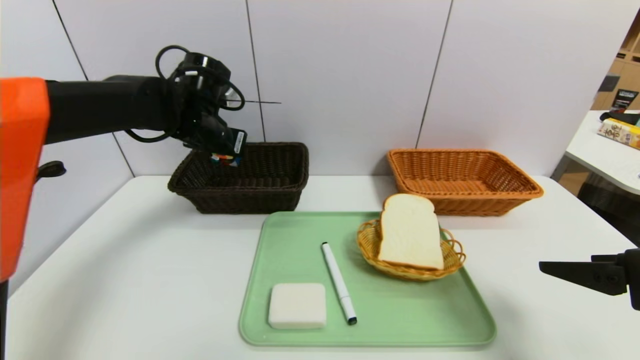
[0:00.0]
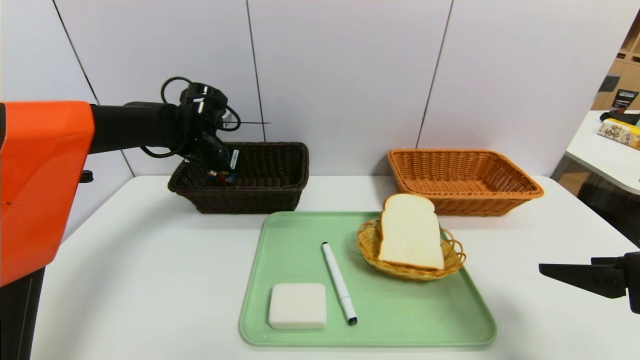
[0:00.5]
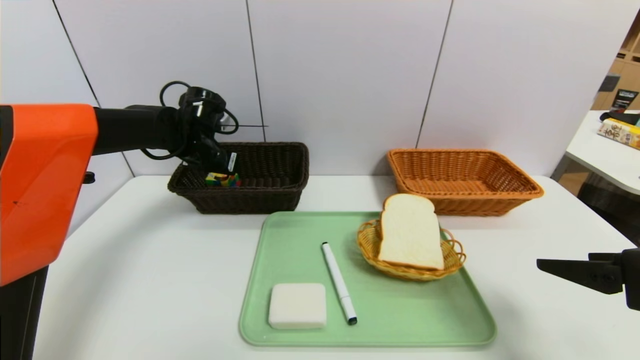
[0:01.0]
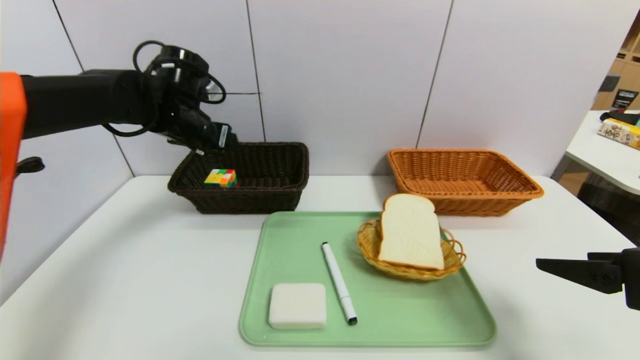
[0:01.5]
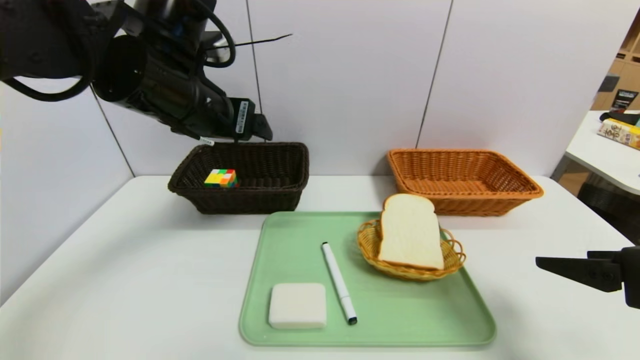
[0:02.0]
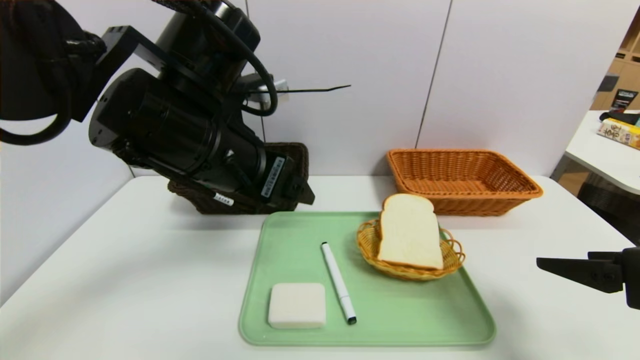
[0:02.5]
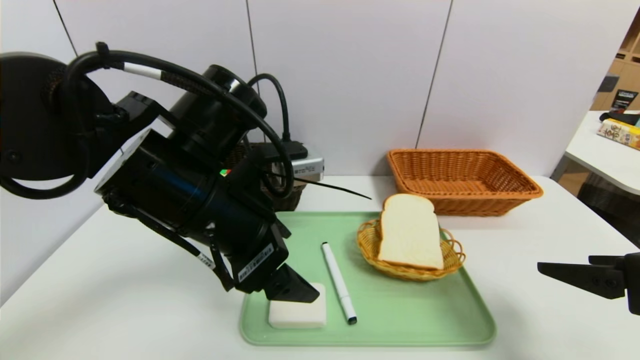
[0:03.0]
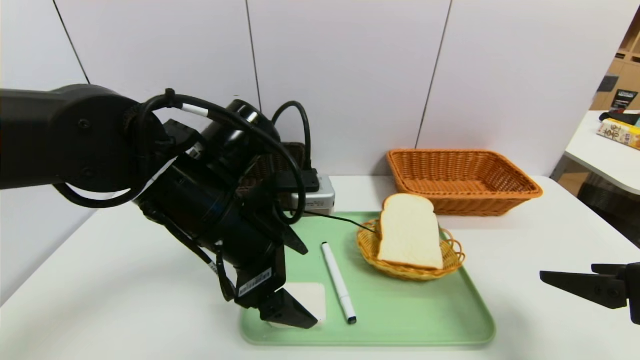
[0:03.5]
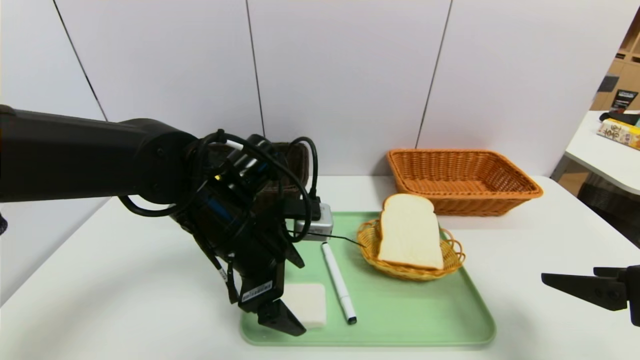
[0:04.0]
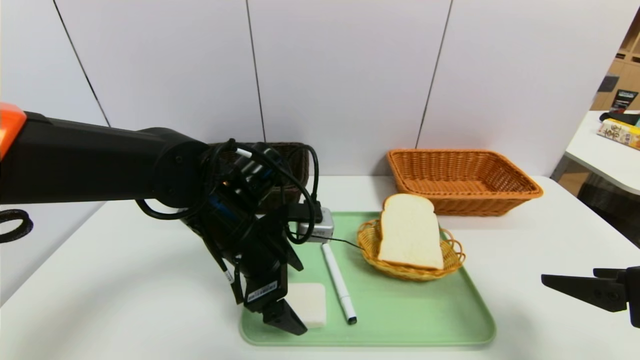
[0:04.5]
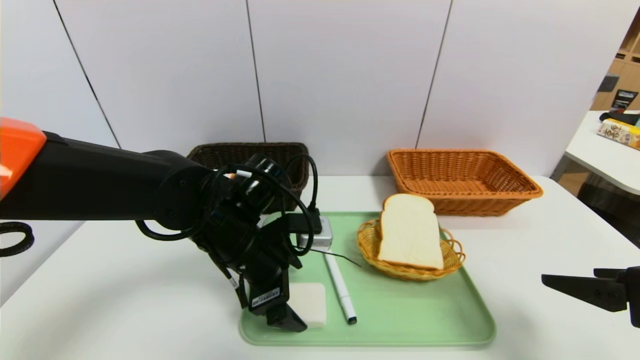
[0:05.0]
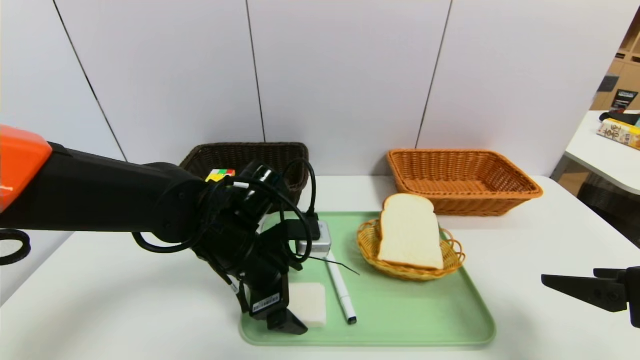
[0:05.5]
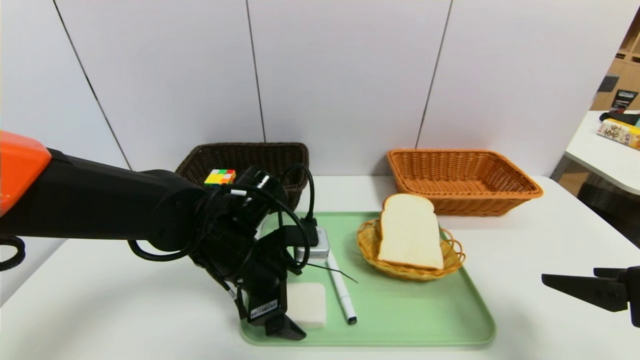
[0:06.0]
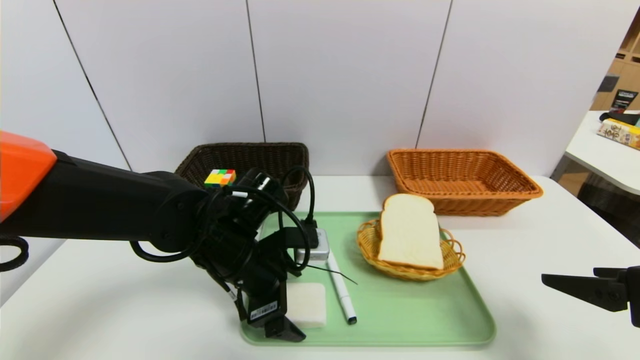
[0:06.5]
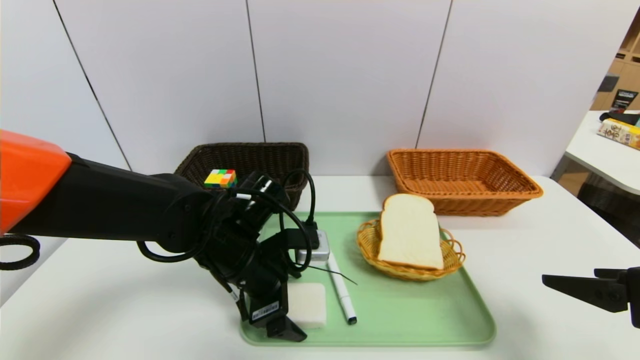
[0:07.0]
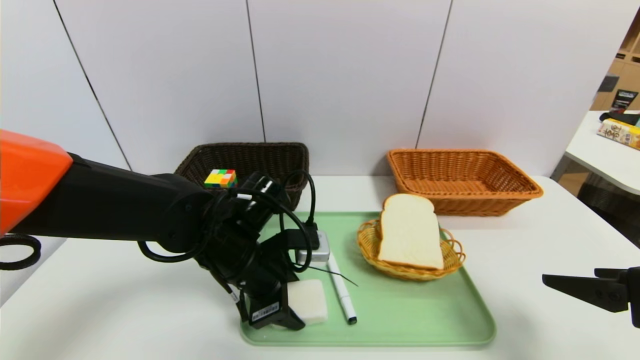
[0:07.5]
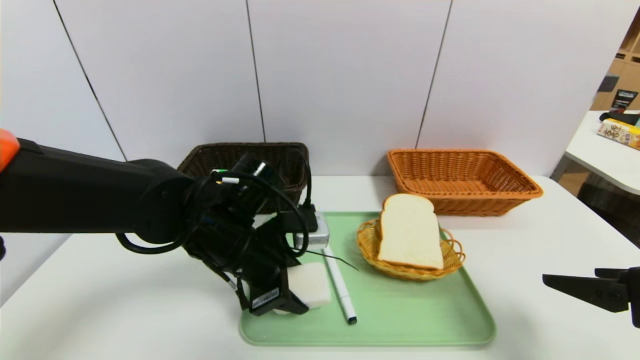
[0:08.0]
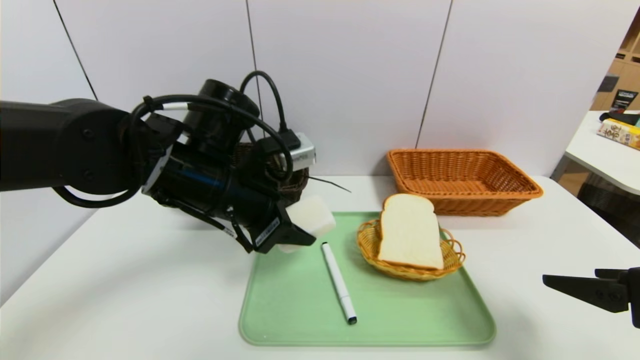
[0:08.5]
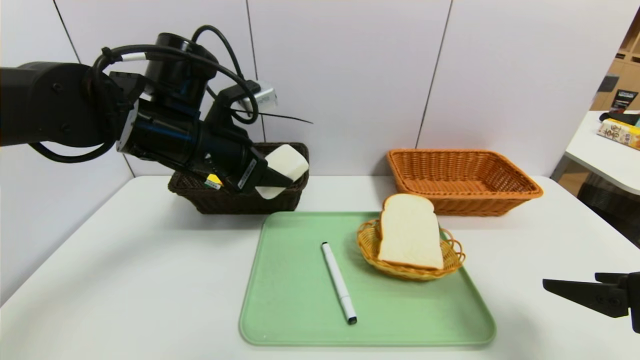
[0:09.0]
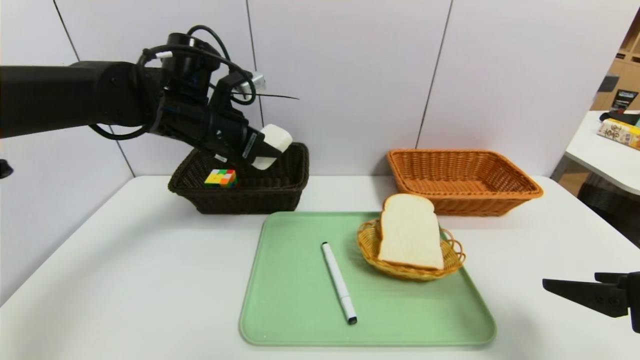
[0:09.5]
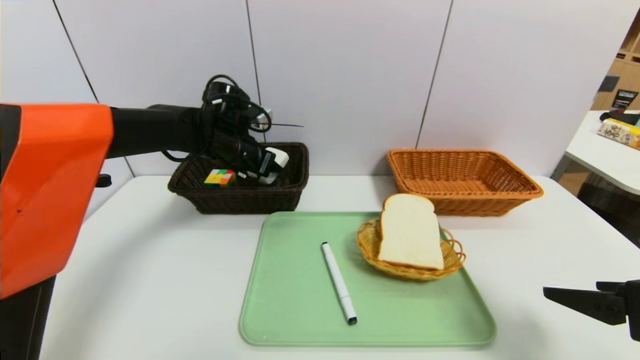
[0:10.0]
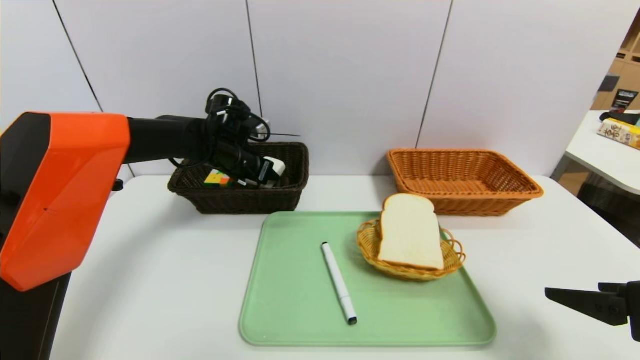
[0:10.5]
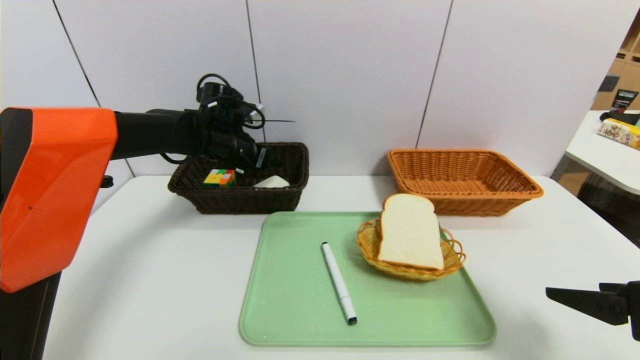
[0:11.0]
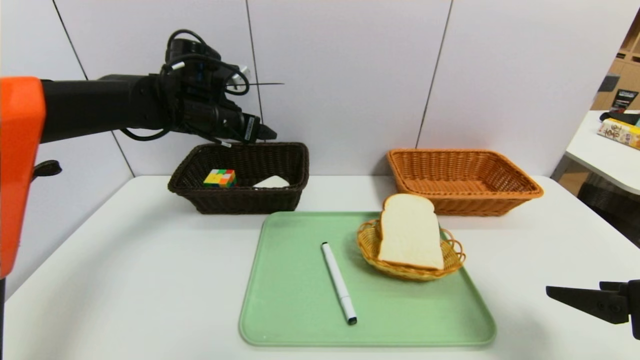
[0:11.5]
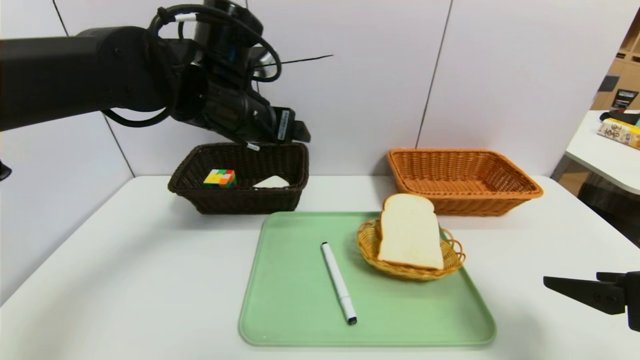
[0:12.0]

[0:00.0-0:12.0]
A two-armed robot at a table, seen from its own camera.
Task of the whole recording: place the food in the right basket with the right gripper, and place the non food items in the left basket with the left gripper.
Step, 0:02.0 to 0:11.0: Grasp the soap and put it in the left basket.
0:00.0 to 0:02.0: The left gripper goes some 15 cm backward and upward, and opens its fingers.
0:02.0 to 0:04.0: The left gripper goes about 15 cm downward.
0:04.0 to 0:06.0: There are only small adjustments of the grippers.
0:06.0 to 0:08.0: The left gripper closes.
0:08.0 to 0:10.0: The left gripper shifts about 15 cm forward.
0:10.0 to 0:12.0: The left gripper goes about 15 cm backward, upward and to the right, and opens its fingers.

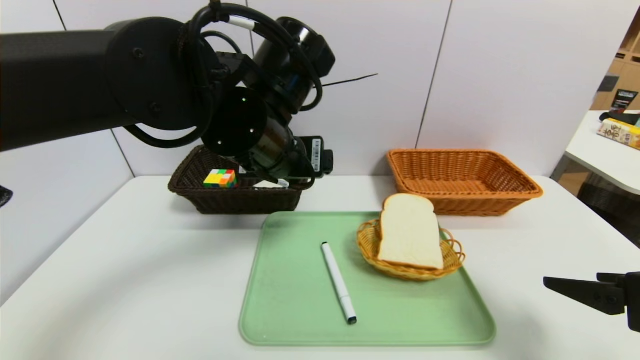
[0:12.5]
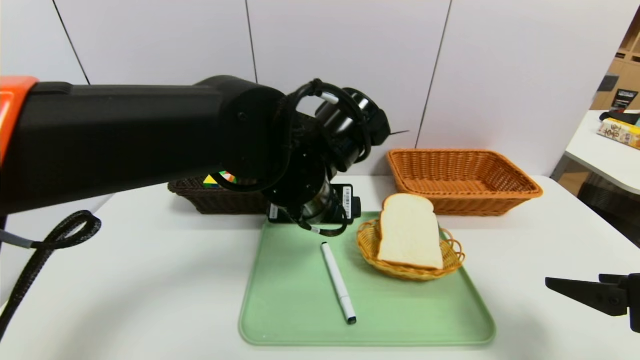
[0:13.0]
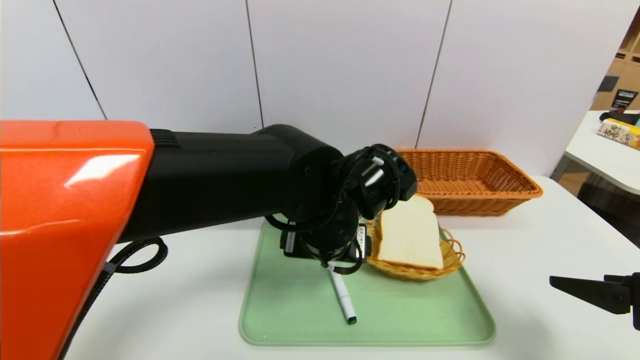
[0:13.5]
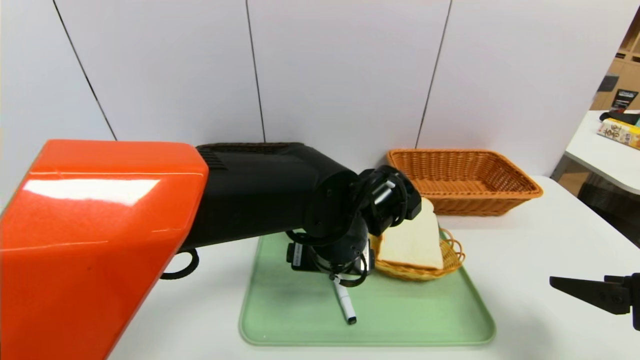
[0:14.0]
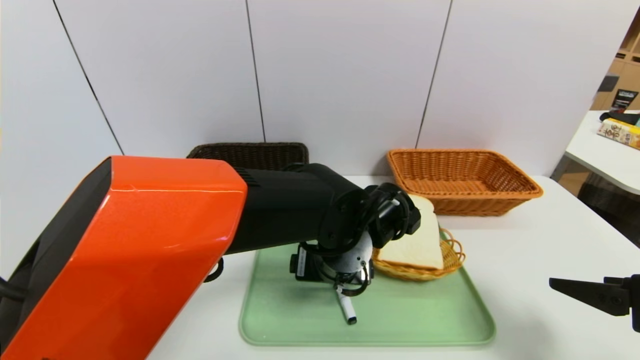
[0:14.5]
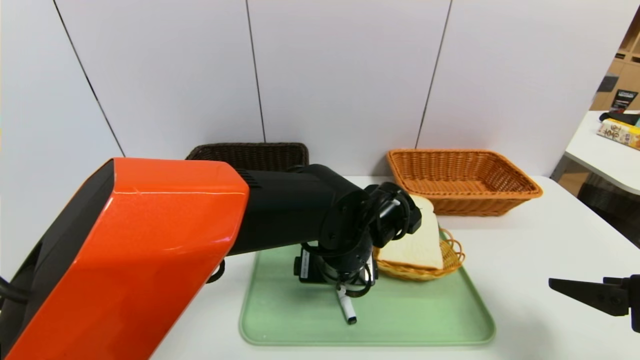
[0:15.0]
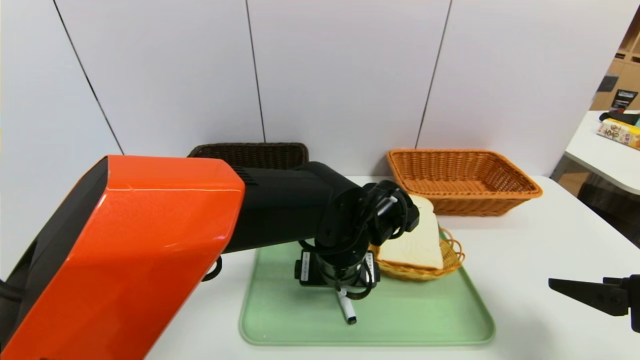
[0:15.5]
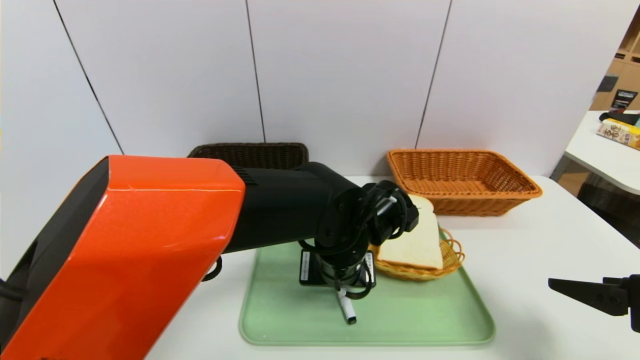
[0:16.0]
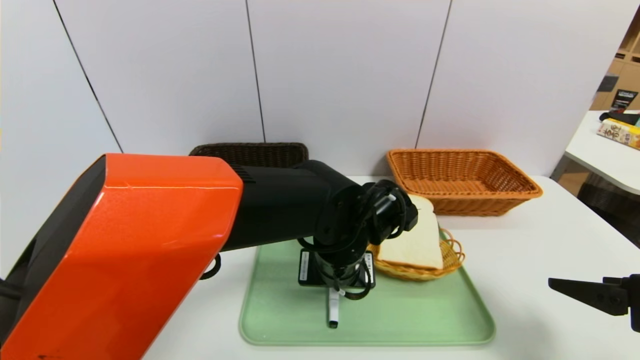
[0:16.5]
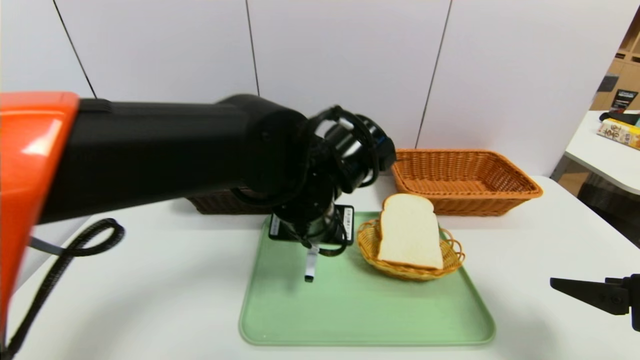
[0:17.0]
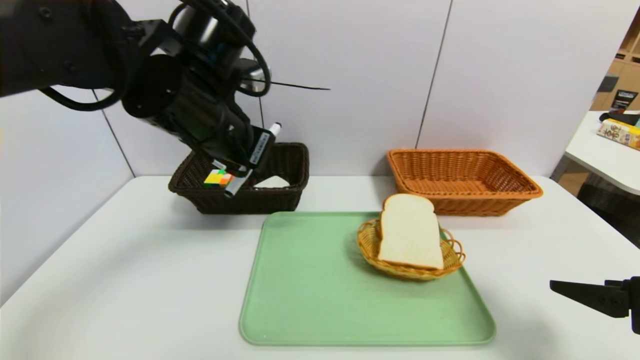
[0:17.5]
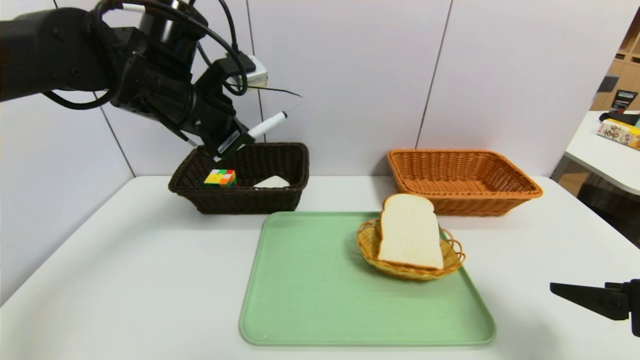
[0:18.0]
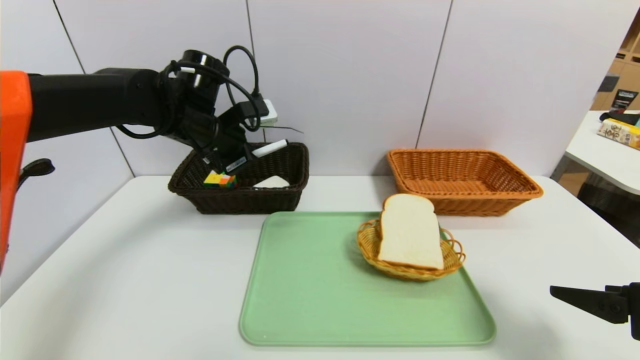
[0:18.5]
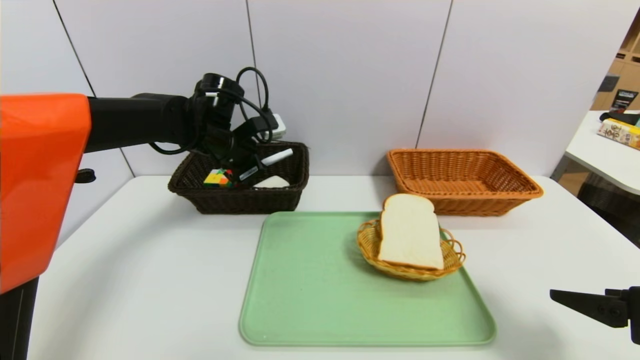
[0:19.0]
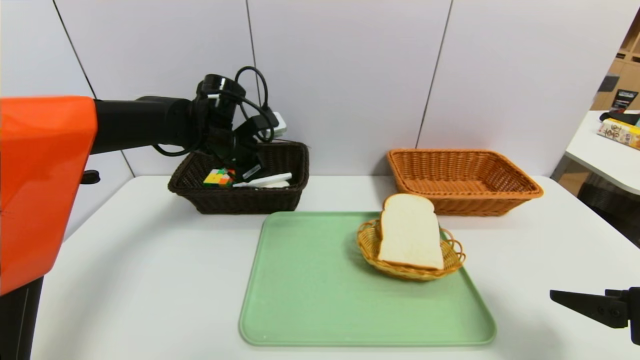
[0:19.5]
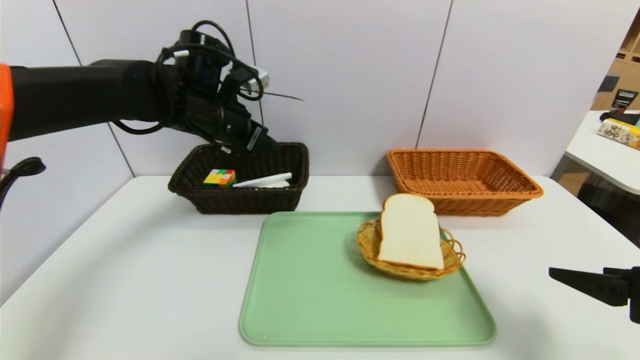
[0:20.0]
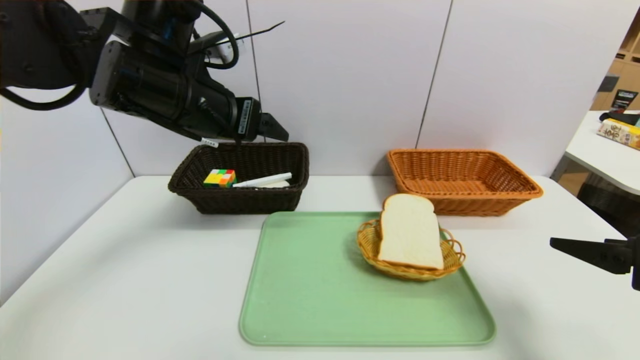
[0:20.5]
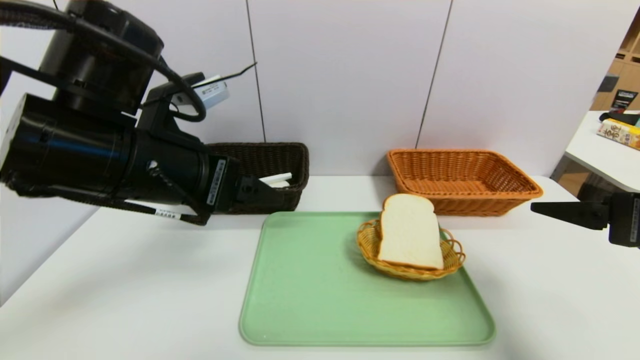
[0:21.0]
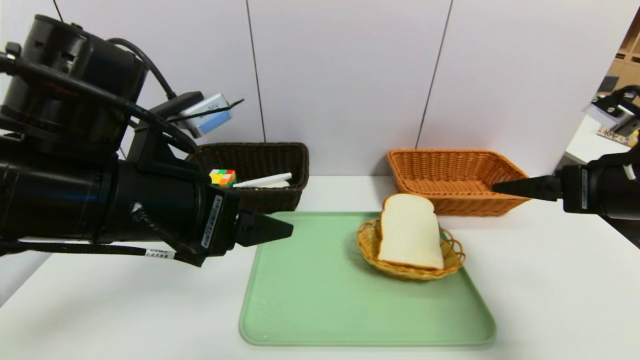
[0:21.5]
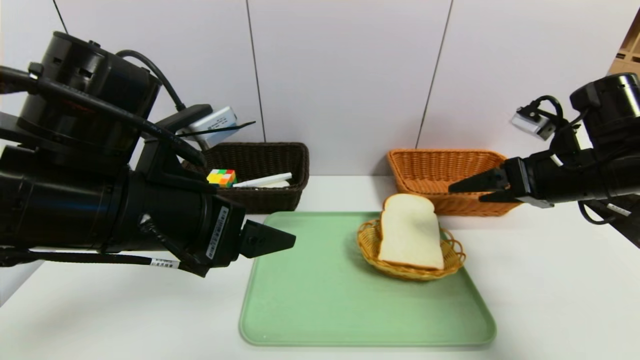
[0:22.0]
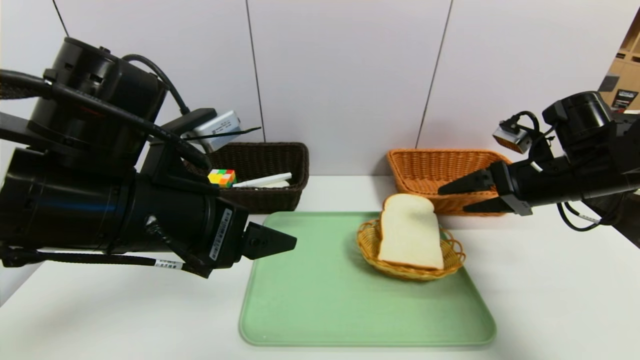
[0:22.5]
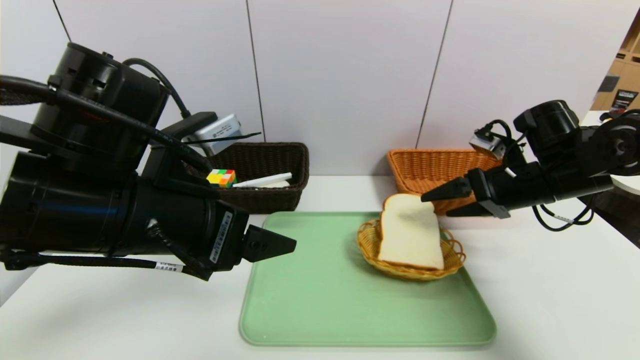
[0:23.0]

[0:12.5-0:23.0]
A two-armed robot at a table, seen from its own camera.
Task of the whole recording: place the food in the right basket with the right gripper, and place the non food items in the left basket with the left gripper.
Step, 0:12.5 to 0:19.5: Grasp the black marker and put it in the left basket.
0:12.5 to 0:14.5: The left gripper heads downward and to the right, covering some 15 cm.
0:14.5 to 0:16.5: The left gripper closes.
0:16.5 to 0:19.0: The left gripper is displaced to the left and forward by roughly 25 cm.
0:19.0 to 0:21.0: The right gripper is displaced upward and forward by roughly 10 cm. Meanwhile the left gripper travels backward by some 20 cm, and opens.
0:21.0 to 0:23.0: The right gripper goes roughly 15 cm forward.
